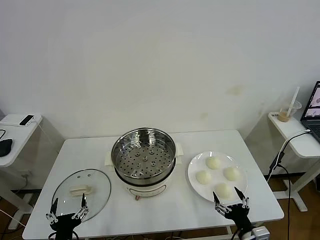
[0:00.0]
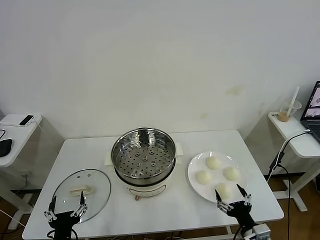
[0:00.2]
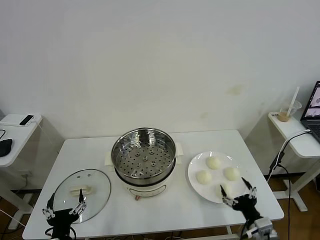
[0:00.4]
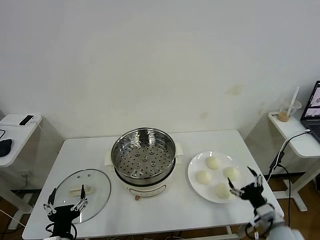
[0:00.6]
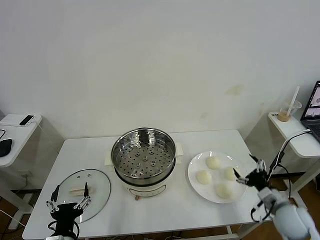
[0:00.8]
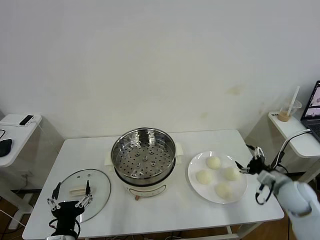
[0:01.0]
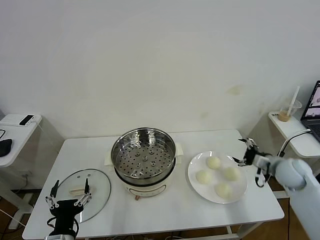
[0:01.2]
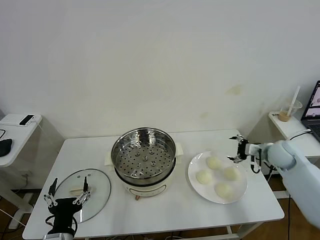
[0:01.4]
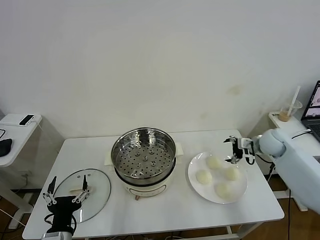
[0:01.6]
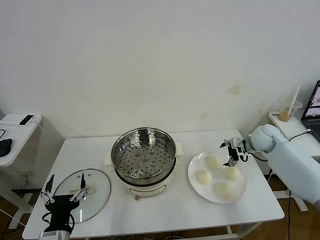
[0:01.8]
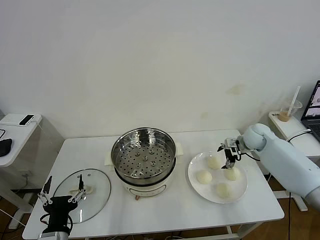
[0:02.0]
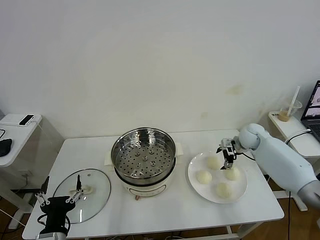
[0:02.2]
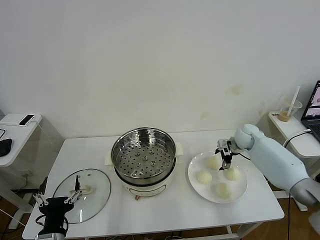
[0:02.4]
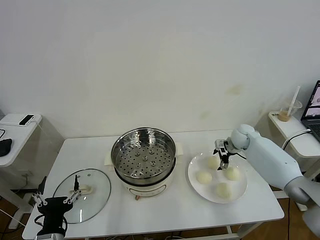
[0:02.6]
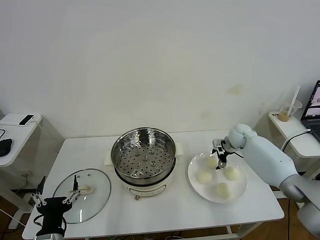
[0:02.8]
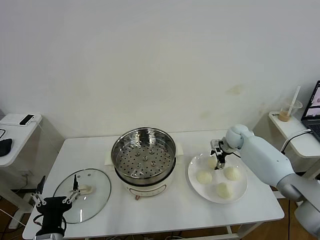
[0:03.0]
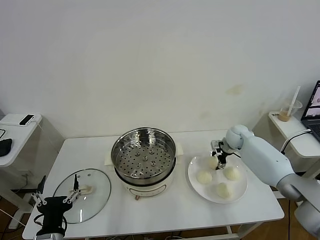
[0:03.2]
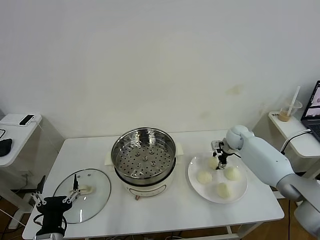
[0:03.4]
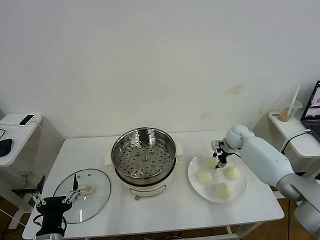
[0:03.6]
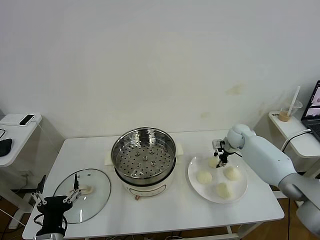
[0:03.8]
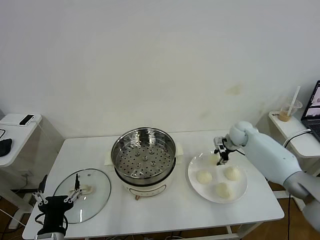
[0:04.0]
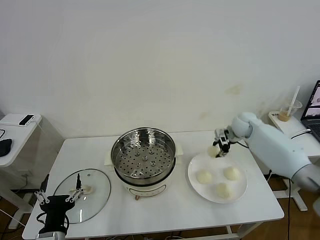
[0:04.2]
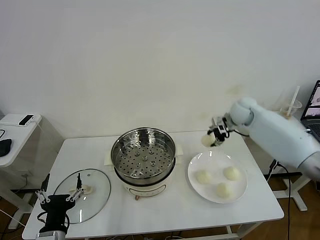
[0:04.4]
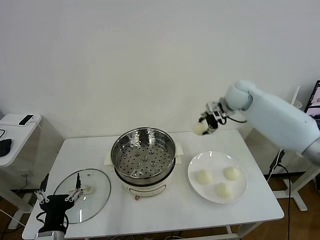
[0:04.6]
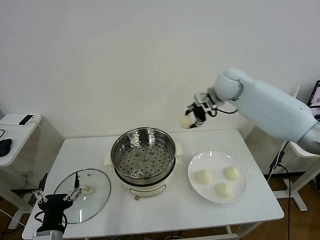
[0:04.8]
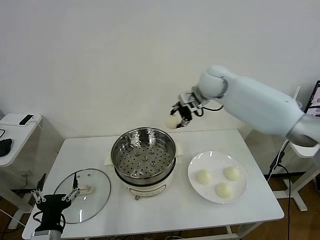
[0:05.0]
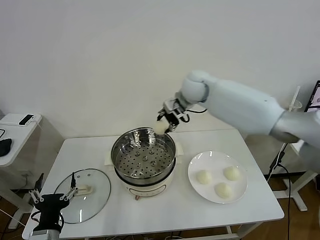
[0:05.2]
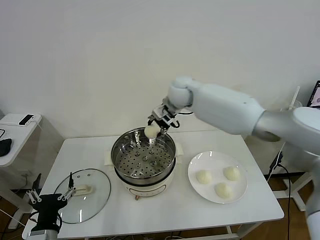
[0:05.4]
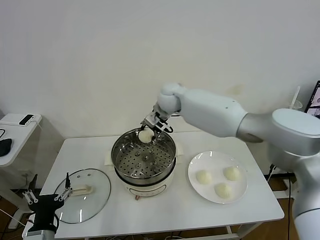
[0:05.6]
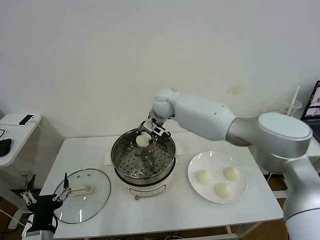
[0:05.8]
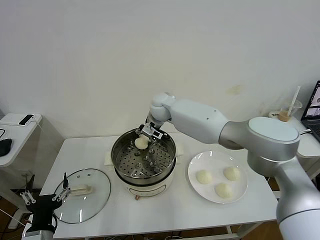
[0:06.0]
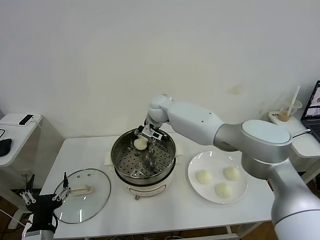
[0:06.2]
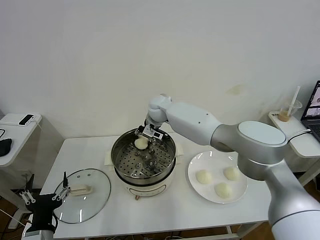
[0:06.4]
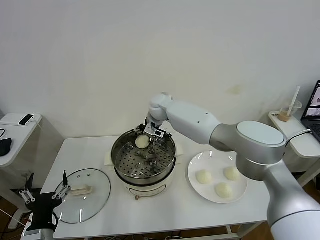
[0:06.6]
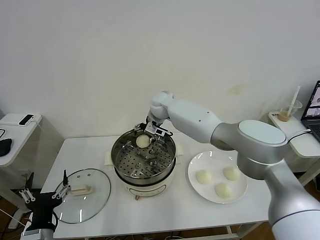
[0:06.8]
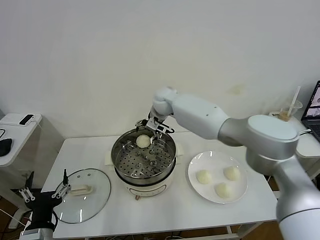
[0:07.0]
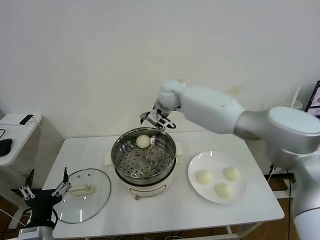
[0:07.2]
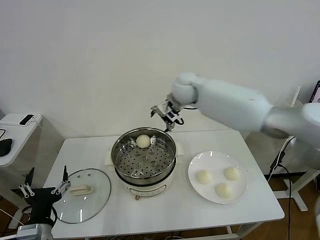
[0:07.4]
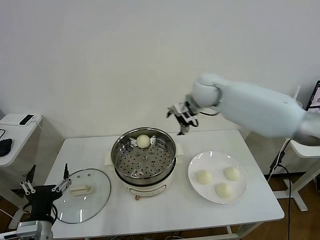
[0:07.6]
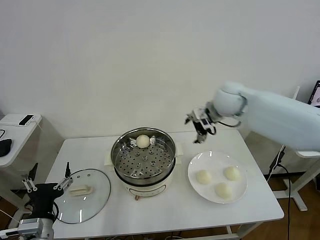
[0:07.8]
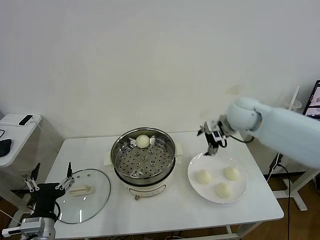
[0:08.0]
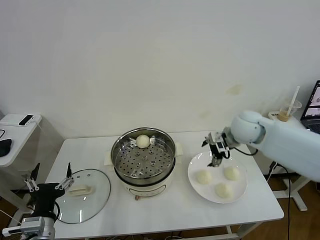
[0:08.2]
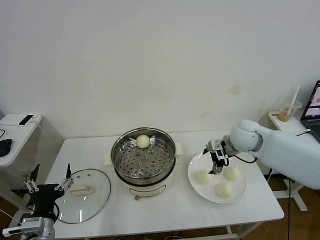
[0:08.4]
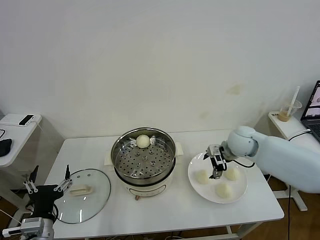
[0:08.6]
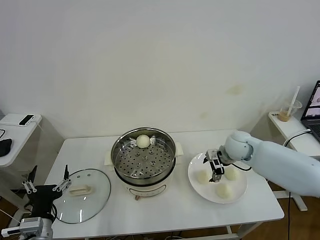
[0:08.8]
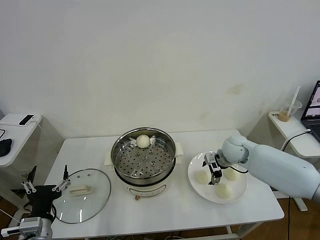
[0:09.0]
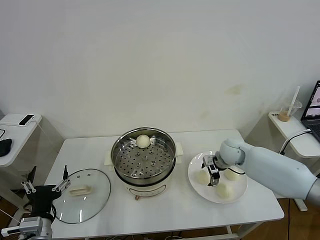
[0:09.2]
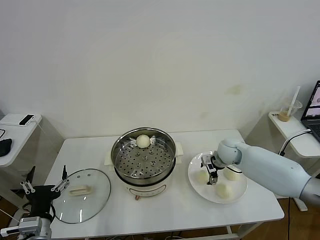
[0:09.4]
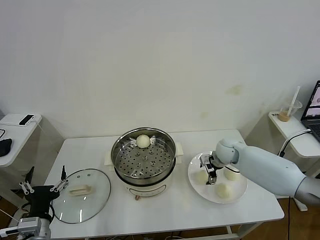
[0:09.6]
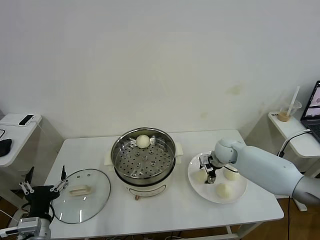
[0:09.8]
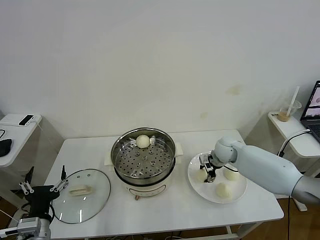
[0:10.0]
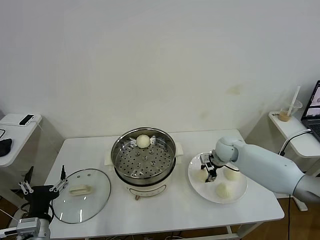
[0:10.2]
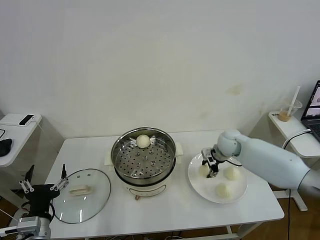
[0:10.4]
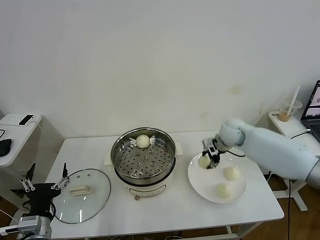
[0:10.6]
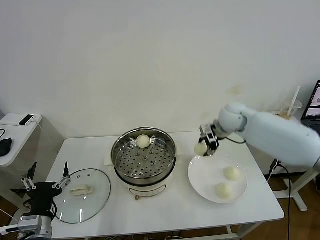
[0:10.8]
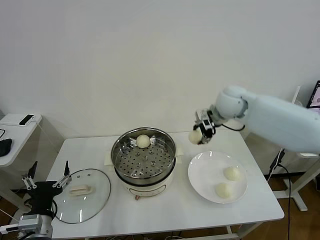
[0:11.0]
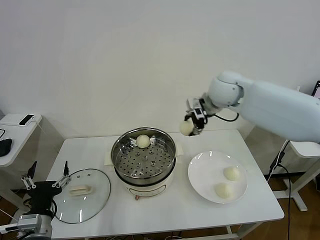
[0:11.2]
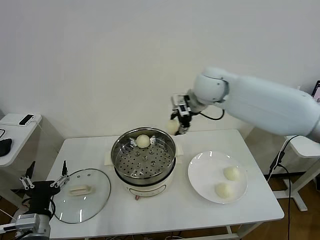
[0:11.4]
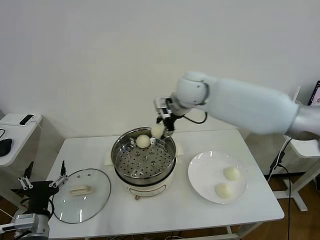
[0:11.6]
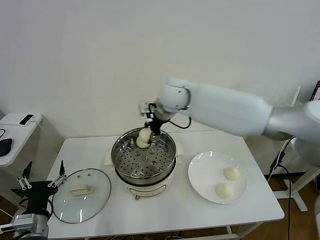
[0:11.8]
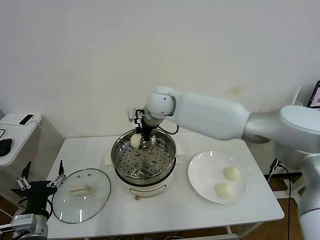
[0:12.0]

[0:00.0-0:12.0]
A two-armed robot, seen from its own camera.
Task of the whole recording: take steamed baozi put them in steamer then cover it.
Step, 0:00.0 to 0:03.6: Grasp the baozi in the plate with right gripper.
Step, 0:03.8 to 0:07.0: Place the baozi on the steamer with right gripper.
Step, 0:07.2 to 0:10.0: Grasp the baozi in the plate with right gripper.
0:01.6 to 0:03.0: The right gripper travels to the left, forward and downward by about 10 cm.
0:03.0 to 0:04.4: The right gripper shifts roughly 15 cm upward, and closes up.
0:04.4 to 0:06.0: The right gripper moves to the left, approximately 30 cm.
0:06.0 to 0:07.6: The right gripper is displaced to the right and upward by about 20 cm, and opens up.
0:07.6 to 0:09.0: The right gripper is displaced downward and to the right by about 25 cm.
0:09.0 to 0:10.4: The right gripper closes.
0:10.4 to 0:12.0: The right gripper moves to the left and upward, roughly 30 cm.

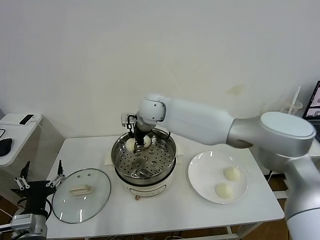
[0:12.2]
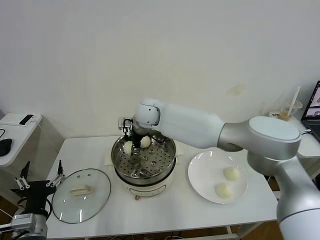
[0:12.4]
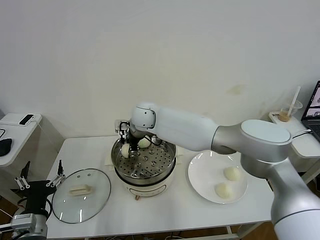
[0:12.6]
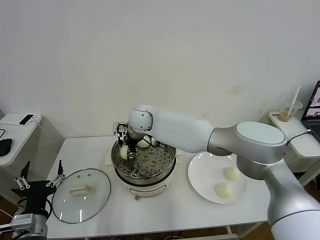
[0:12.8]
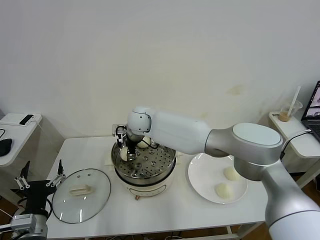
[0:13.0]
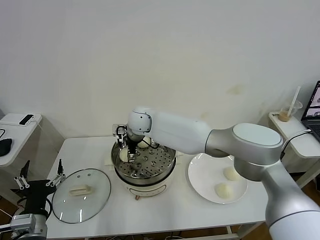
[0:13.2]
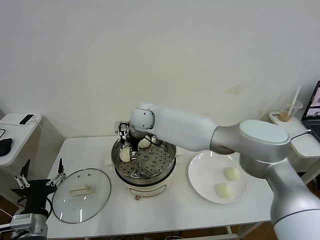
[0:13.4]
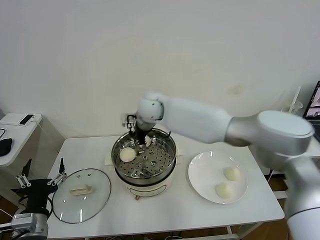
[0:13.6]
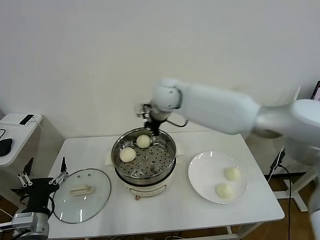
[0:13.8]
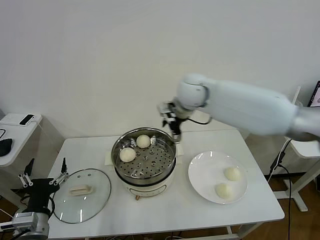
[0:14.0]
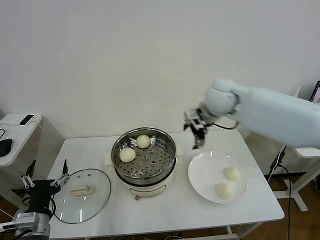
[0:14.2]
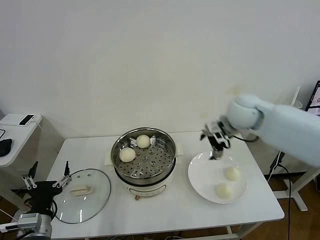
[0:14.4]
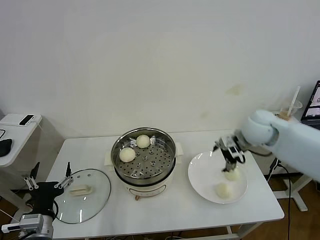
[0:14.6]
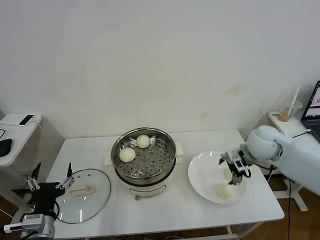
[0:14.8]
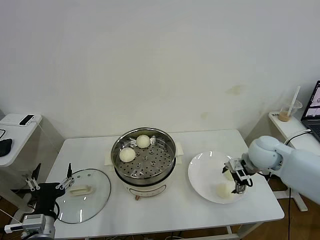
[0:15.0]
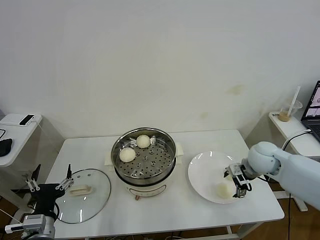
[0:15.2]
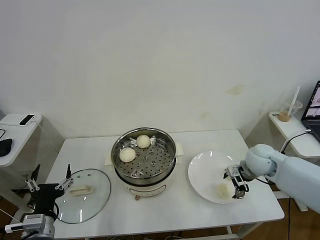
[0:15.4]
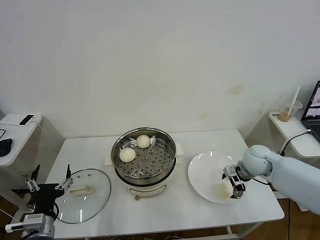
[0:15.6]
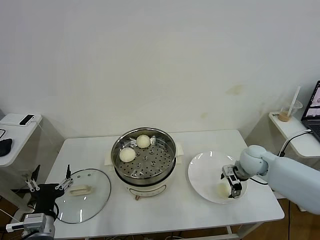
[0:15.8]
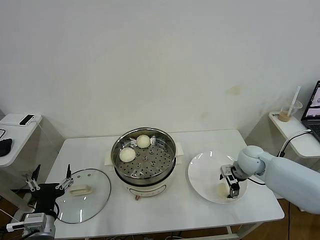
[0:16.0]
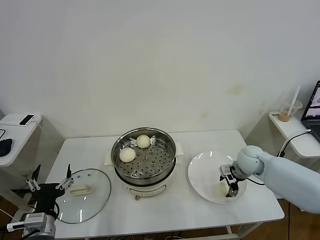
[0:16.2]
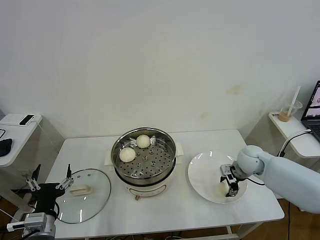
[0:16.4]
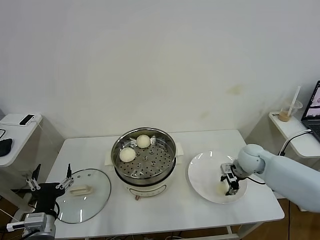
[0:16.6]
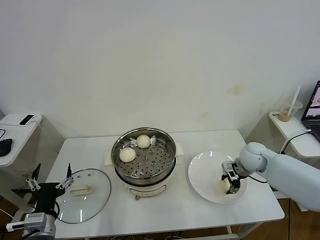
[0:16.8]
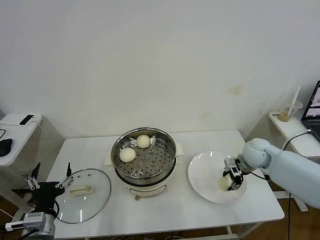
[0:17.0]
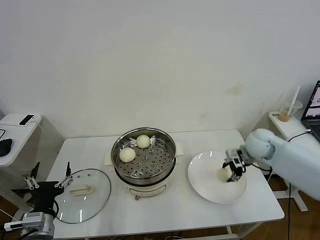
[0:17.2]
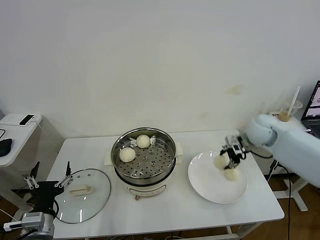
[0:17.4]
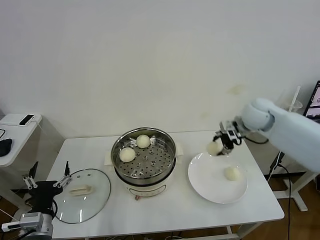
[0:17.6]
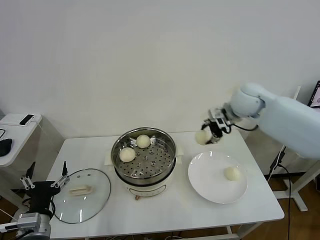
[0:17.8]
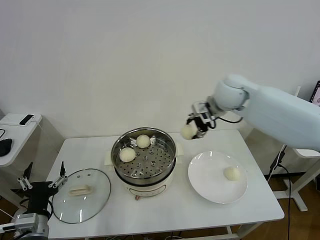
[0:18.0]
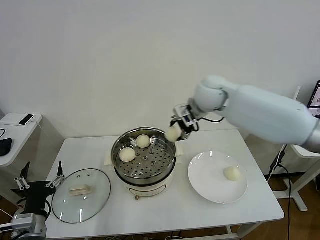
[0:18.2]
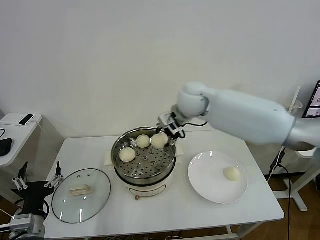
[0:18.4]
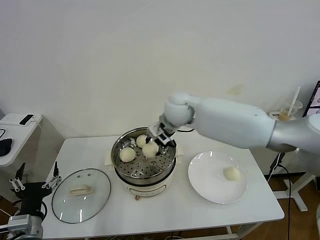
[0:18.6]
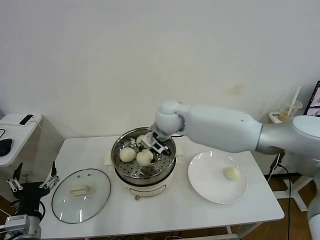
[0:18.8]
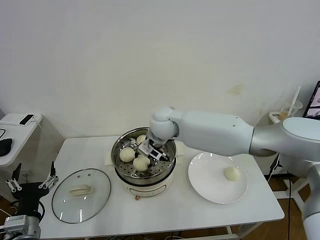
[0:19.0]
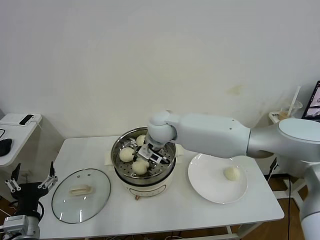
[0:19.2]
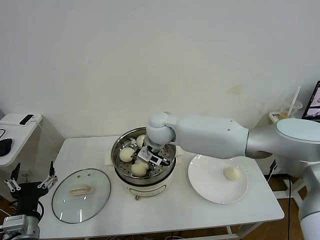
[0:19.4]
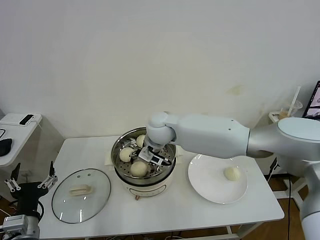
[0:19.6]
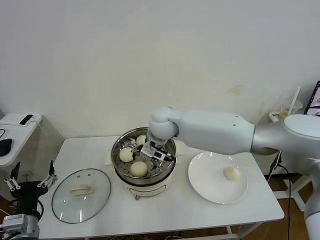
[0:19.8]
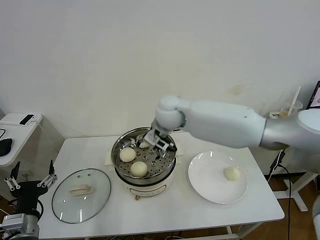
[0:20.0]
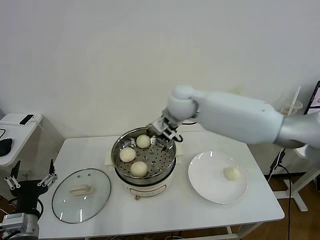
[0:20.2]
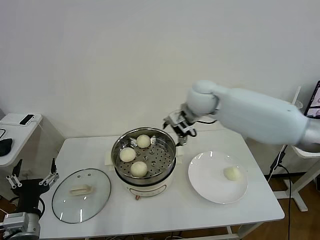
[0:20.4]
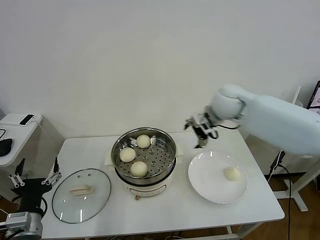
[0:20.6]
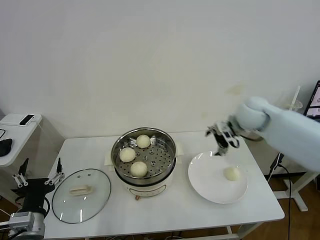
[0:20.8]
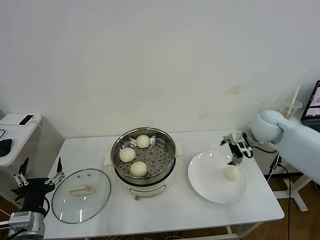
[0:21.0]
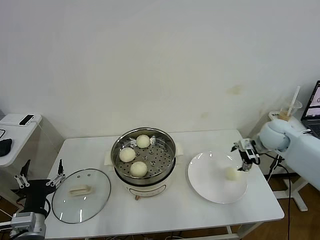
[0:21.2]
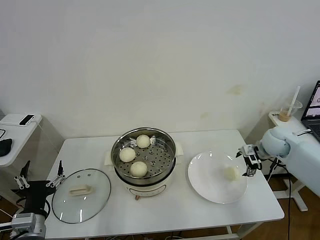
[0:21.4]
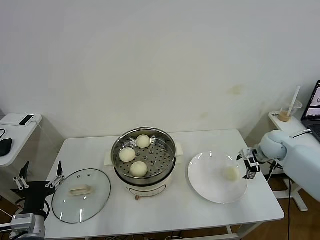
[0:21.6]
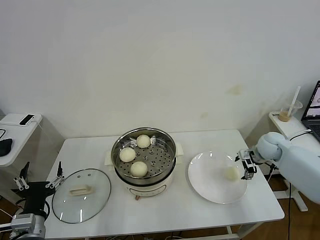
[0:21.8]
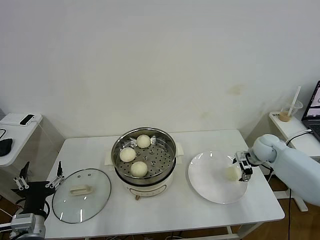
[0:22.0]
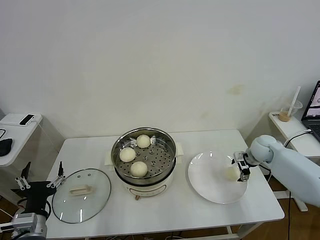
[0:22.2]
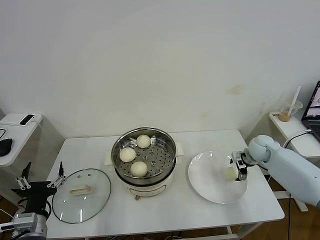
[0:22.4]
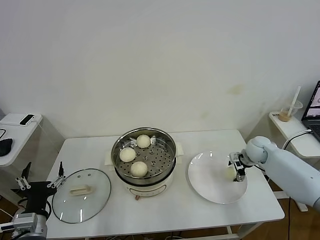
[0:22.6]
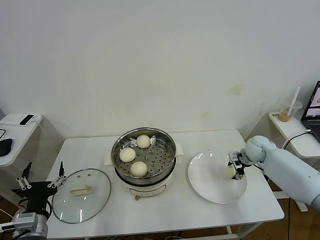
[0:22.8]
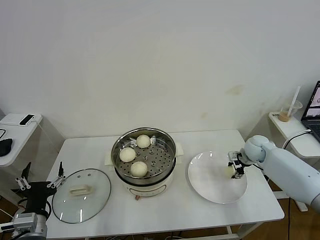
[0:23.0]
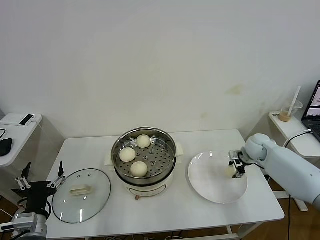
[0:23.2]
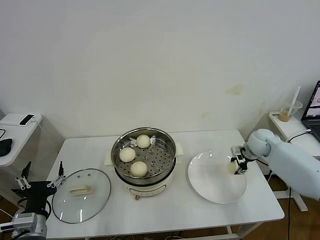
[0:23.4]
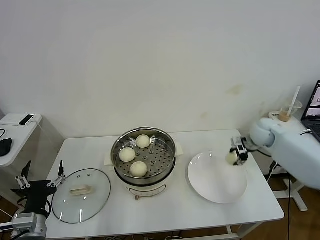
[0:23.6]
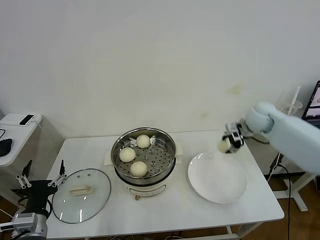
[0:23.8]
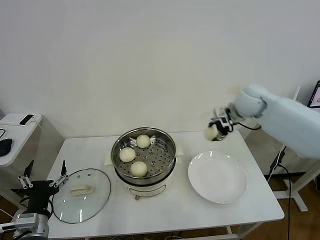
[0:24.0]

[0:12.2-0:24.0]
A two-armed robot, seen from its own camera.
Task of the whole recording: take steamed baozi put them in steamer then cover it.
Step, 0:13.6 to 0:16.6: Grasp the baozi in the plate with right gripper.
Step, 0:16.8 to 0:19.8: Place the baozi on the steamer with right gripper.
Step, 0:20.0 to 0:23.0: Grasp the baozi in the plate with right gripper.
0:12.2 to 0:13.6: The right gripper opens.
0:13.6 to 0:15.2: The right gripper goes about 35 cm to the right.
0:15.2 to 0:16.6: The right gripper moves some 5 cm, and closes its fingers.
0:16.6 to 0:18.2: The right gripper is displaced upward and to the left by about 30 cm.
0:18.2 to 0:19.6: The right gripper travels to the left and downward by some 15 cm, and opens.
0:19.6 to 0:21.0: The right gripper heads to the right, covering about 35 cm.
0:21.0 to 0:22.6: The right gripper shifts roughly 15 cm downward.
0:22.6 to 0:24.0: The right gripper goes some 25 cm upward and to the left, and closes up.
